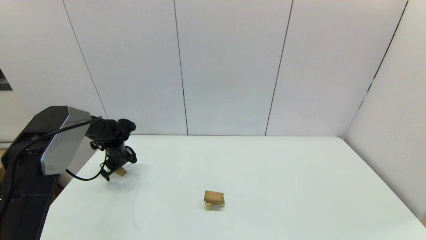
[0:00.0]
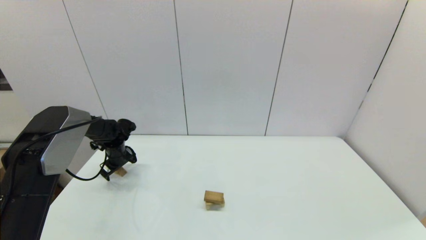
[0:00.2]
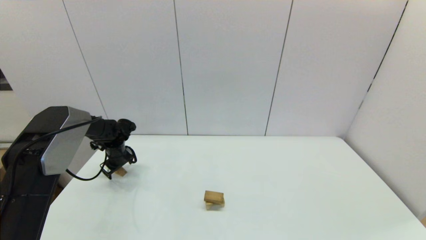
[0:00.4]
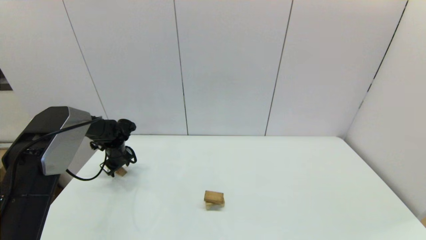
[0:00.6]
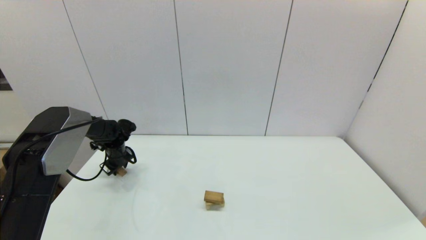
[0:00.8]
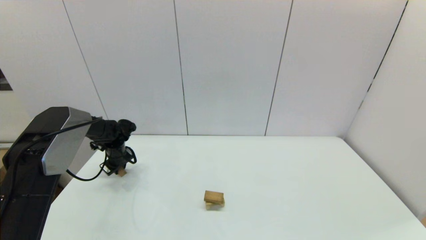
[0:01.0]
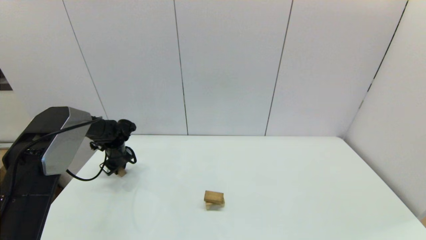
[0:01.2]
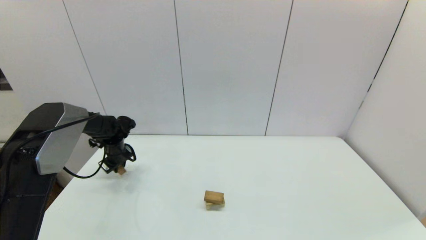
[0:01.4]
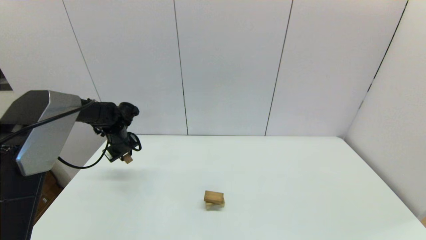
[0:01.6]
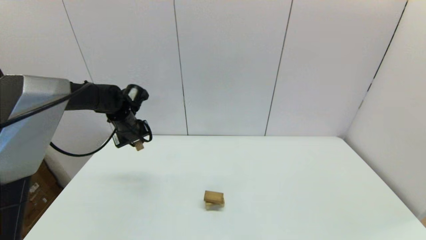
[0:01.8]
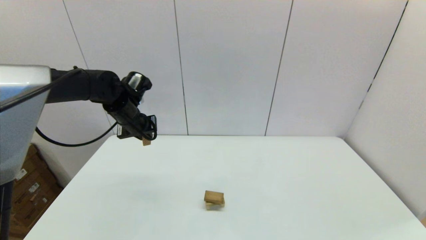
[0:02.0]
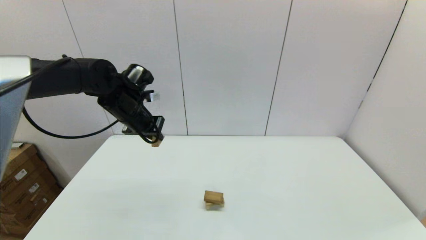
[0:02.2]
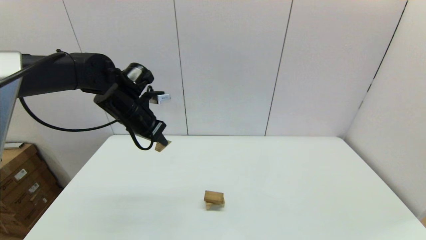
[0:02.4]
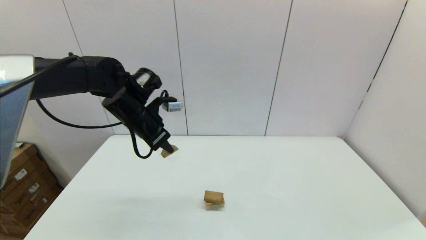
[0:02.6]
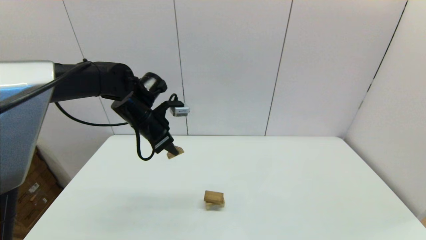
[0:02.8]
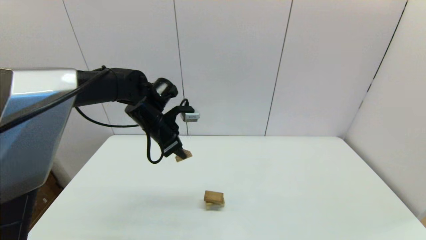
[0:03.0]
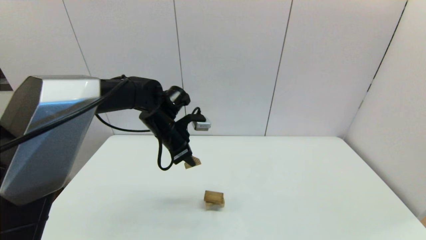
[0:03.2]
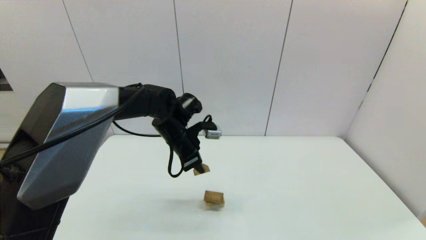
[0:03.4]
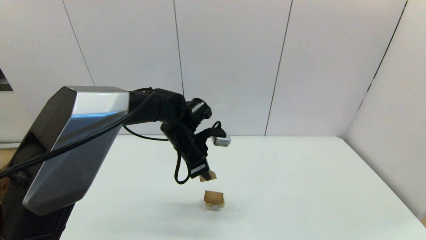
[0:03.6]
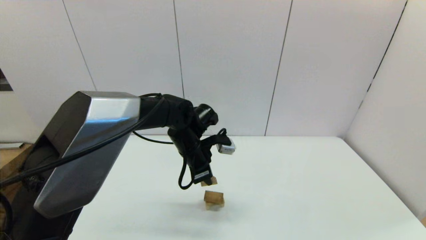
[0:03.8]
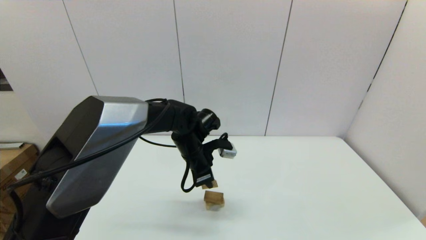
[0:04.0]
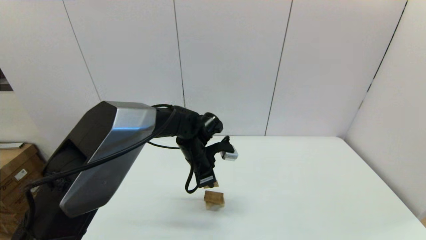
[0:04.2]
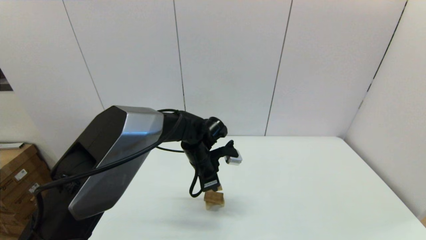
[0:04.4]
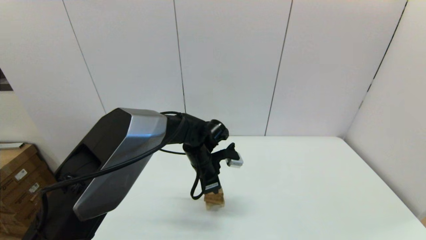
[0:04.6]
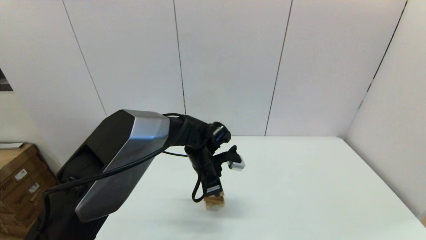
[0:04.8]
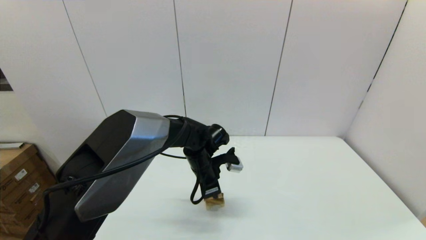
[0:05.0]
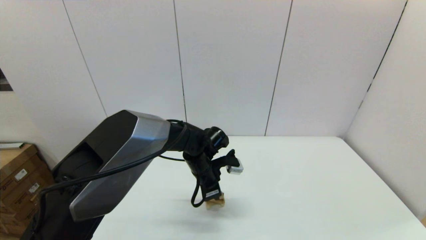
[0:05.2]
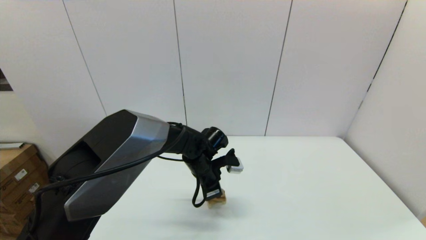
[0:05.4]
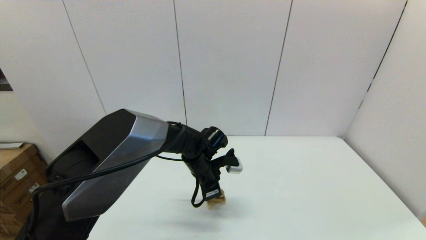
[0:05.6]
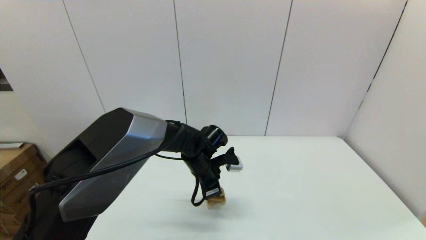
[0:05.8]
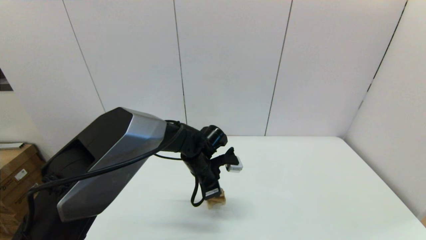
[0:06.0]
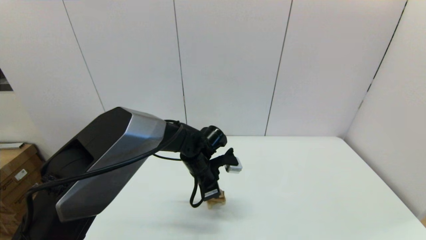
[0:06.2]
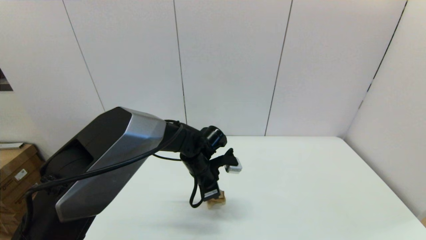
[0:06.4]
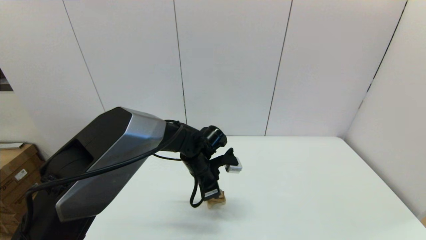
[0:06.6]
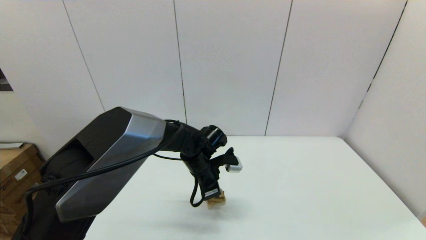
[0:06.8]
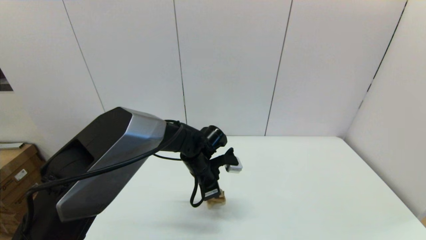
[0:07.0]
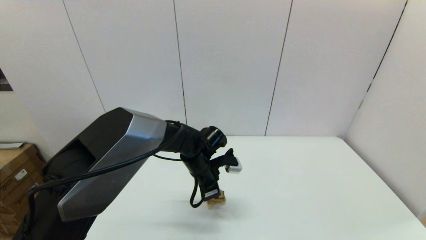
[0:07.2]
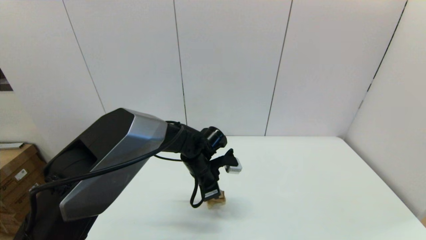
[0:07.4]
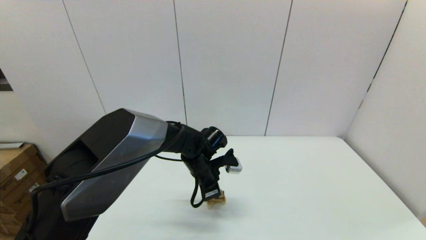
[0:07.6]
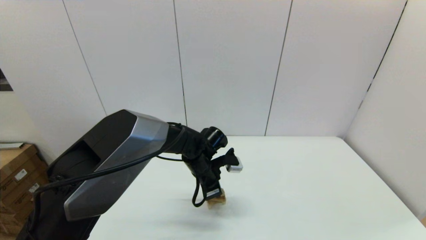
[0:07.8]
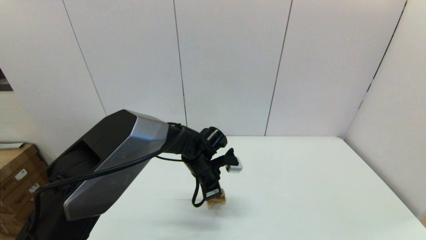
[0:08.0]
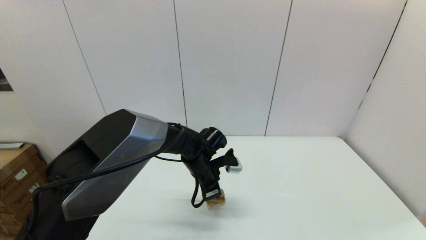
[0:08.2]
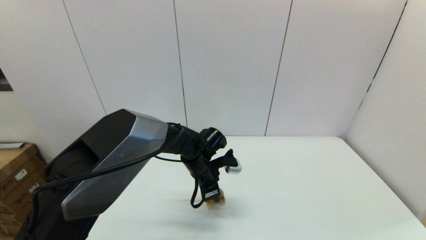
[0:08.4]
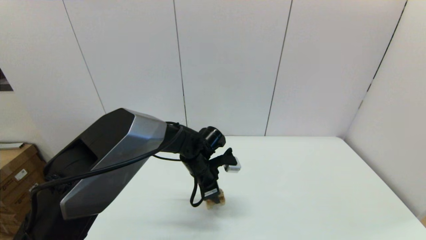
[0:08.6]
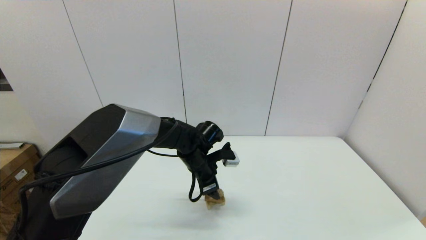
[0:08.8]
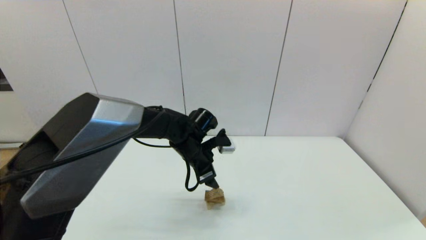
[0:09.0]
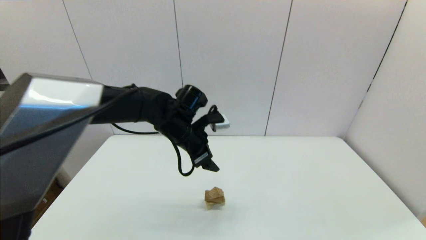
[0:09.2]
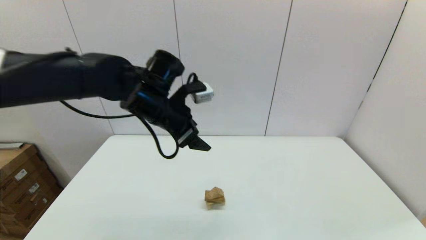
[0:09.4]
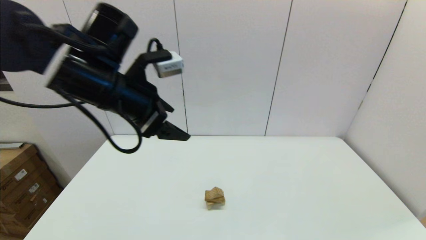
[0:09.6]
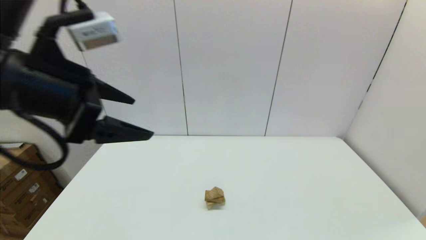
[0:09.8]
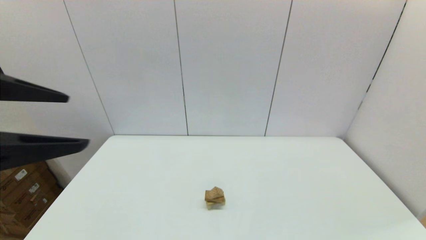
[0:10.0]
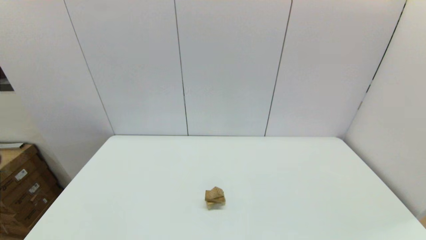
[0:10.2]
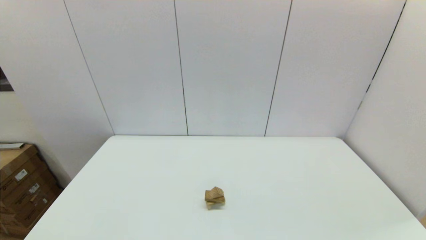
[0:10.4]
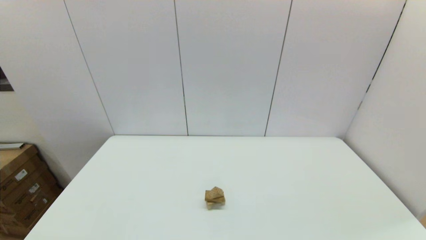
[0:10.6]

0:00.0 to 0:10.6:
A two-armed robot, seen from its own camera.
Task of the whole recording: place the arched building blocks in the center of the table, set up the rectangular building blocks, and then set up the triangular building blocks.
0:00.0 to 0:01.6: The left gripper goes roughly 5 cm upward, and closes.
0:01.6 to 0:03.0: The left gripper shifts about 20 cm to the right, upward and backward.
0:03.0 to 0:04.6: The left gripper moves to the right and downward, some 15 cm.
0:04.6 to 0:06.0: The grippers stay close to where they were, moving slightly.
0:06.0 to 0:07.6: Both grippers stay about where they are.
0:07.6 to 0:09.0: The left gripper shifts by roughly 5 cm, and opens up.
0:09.0 to 0:10.6: The left gripper is displaced backward, to the left and upward by about 50 cm.

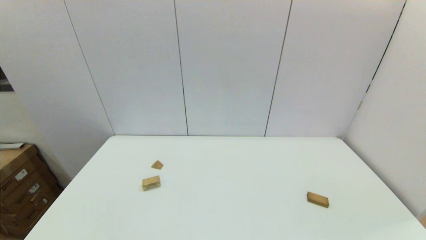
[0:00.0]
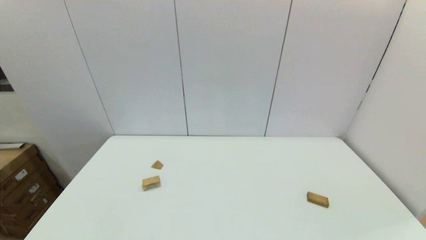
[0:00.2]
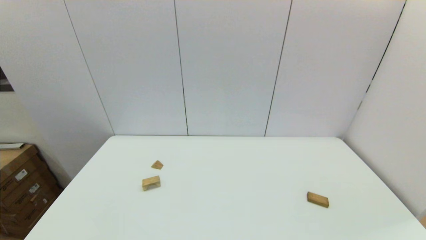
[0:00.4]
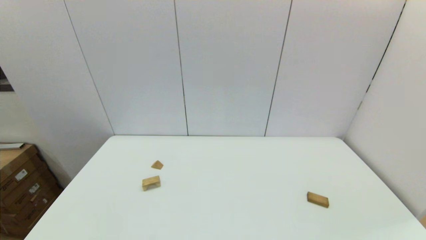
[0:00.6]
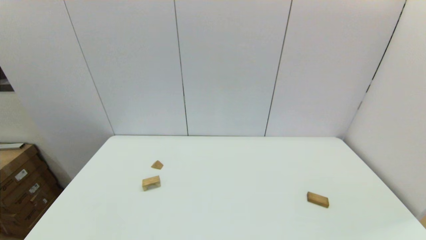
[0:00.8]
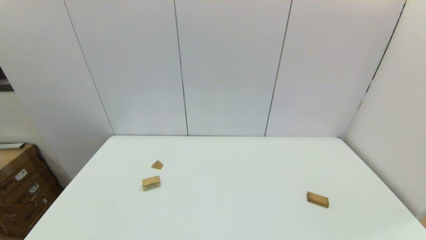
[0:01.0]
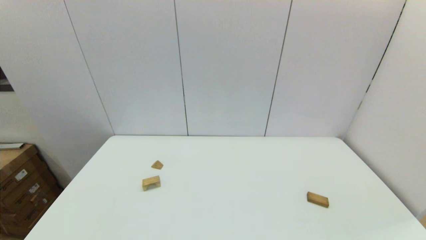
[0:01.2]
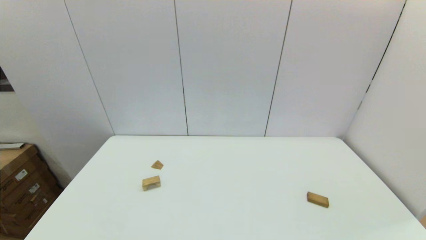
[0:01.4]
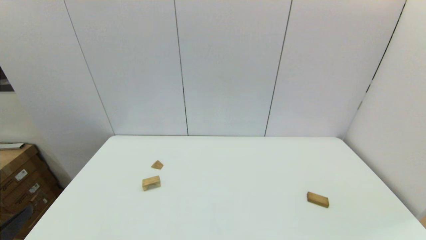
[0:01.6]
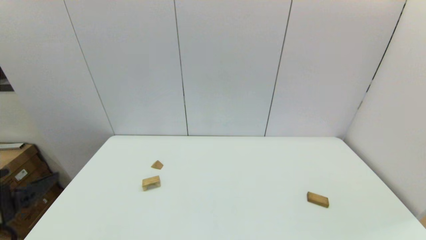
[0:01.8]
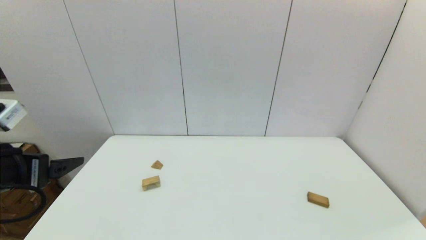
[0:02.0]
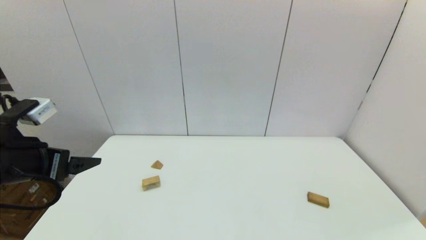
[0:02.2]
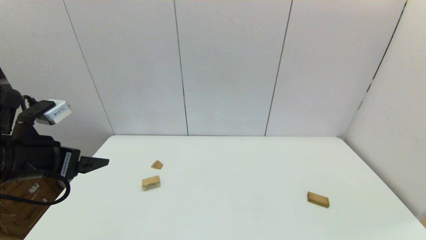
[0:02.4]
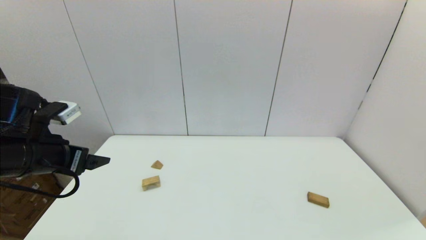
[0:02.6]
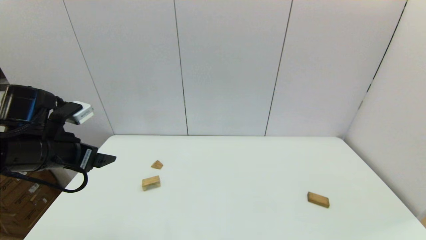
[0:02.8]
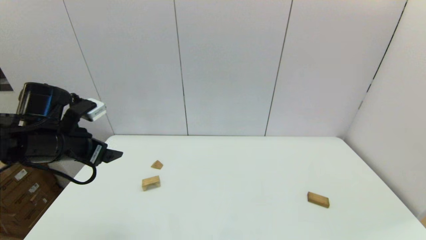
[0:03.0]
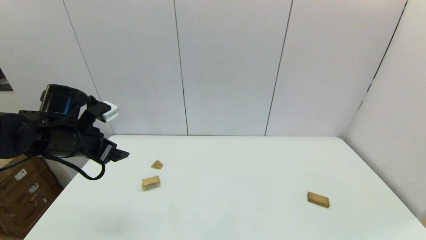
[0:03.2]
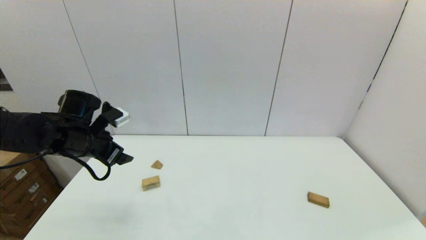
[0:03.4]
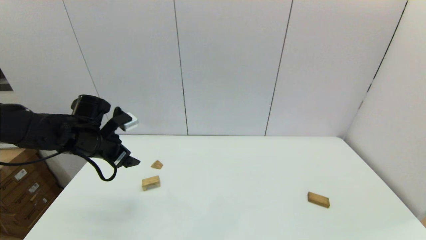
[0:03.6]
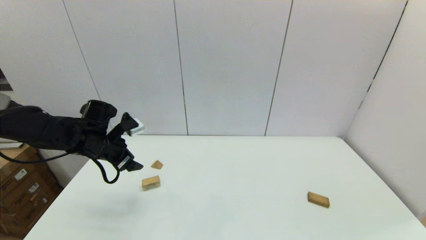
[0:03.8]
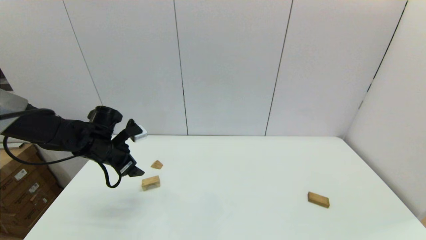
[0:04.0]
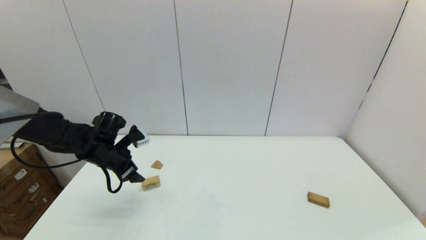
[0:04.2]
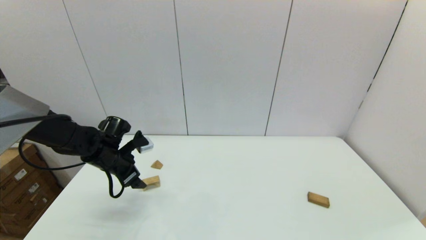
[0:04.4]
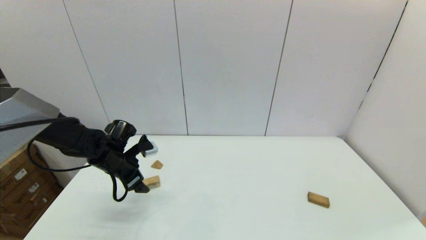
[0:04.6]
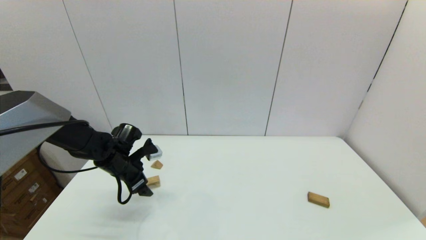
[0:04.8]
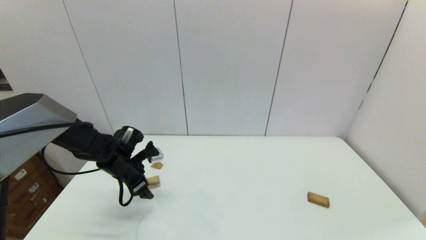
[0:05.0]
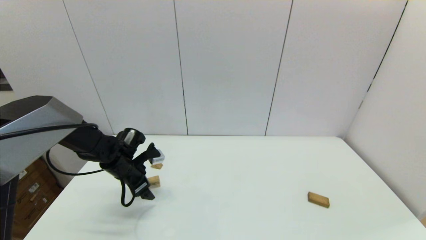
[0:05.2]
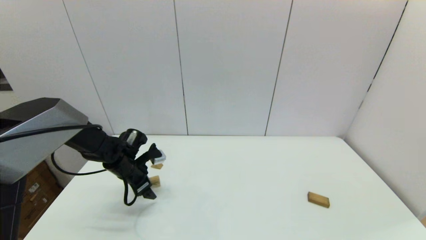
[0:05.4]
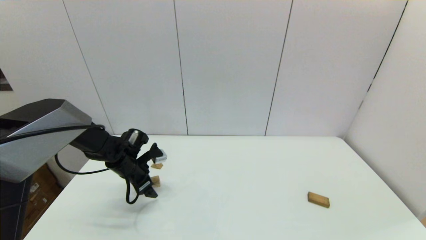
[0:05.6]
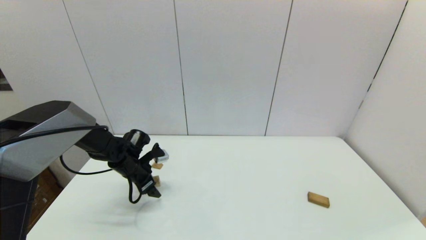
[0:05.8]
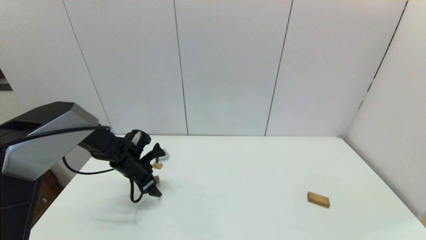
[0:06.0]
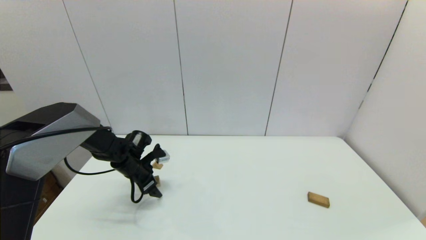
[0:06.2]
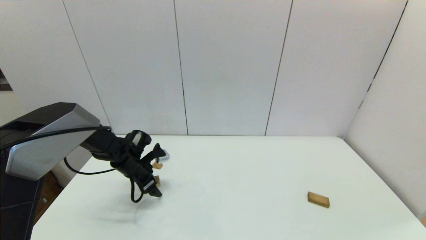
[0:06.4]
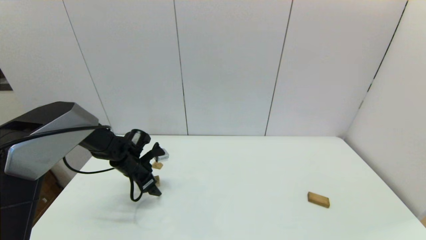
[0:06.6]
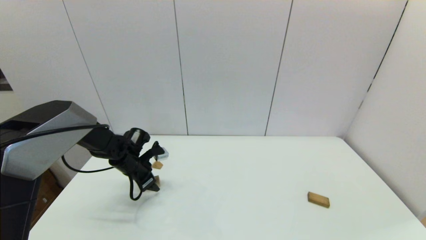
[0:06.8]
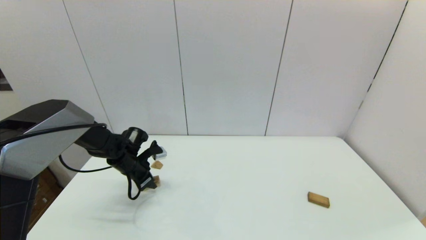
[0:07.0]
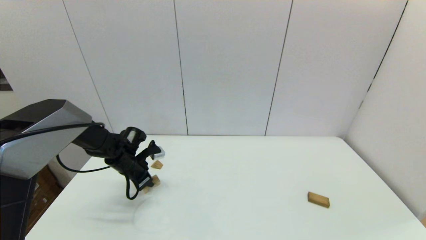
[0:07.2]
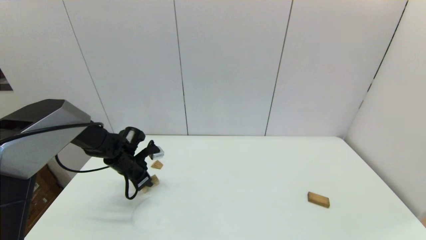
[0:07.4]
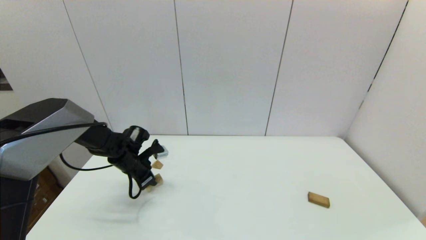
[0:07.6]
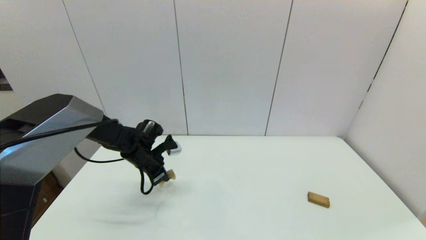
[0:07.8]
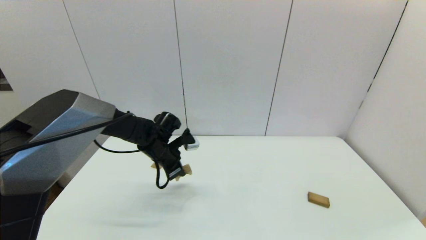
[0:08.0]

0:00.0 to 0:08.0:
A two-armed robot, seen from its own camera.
Task of the whole recording: place the arched building blocks in the center of the table, set up the rectangular building blocks, and then set up the triangular building blocks.
Step, 0:01.6 to 0:07.0: Grasp the arch-shaped block with the left gripper.
0:01.6 to 0:03.2: The left gripper goes about 25 cm forward.
0:03.2 to 0:04.8: The left gripper travels downward and forward by approximately 15 cm.
0:04.8 to 0:06.4: The left gripper shifts by about 5 cm.
0:06.4 to 0:08.0: The left gripper heads to the right and upward, covering roughly 15 cm, and closes its fingers.
